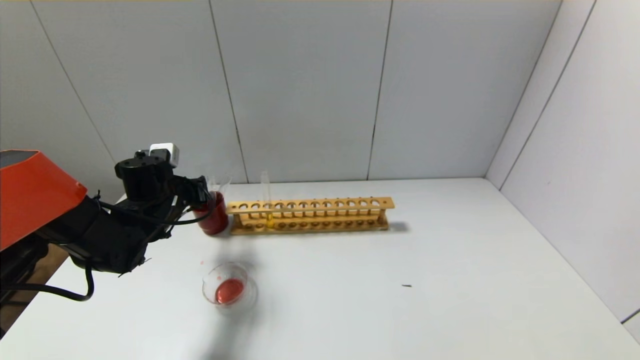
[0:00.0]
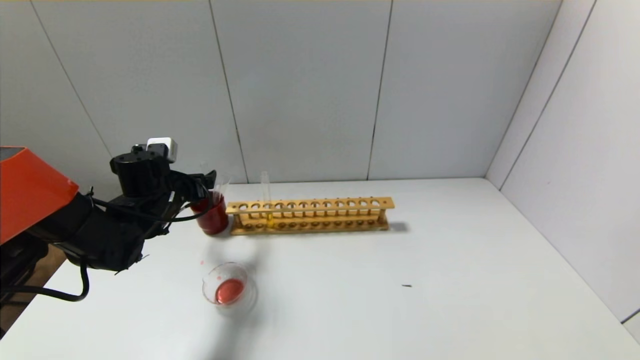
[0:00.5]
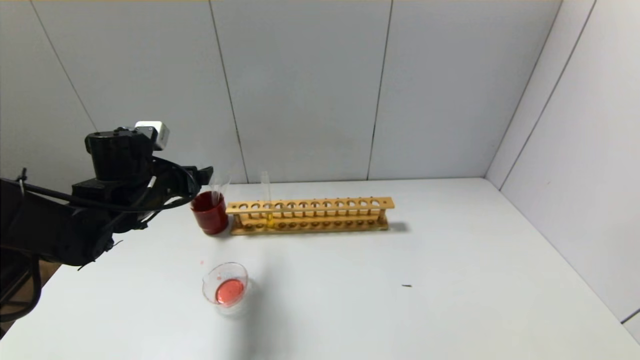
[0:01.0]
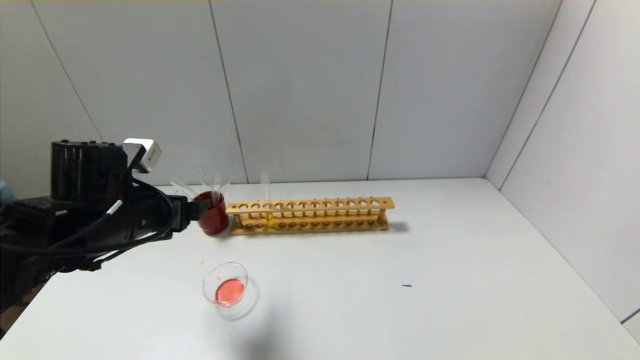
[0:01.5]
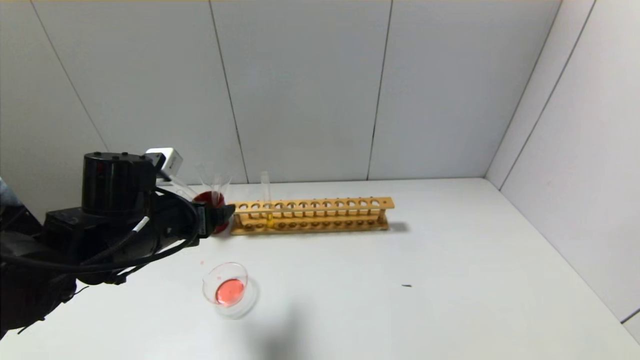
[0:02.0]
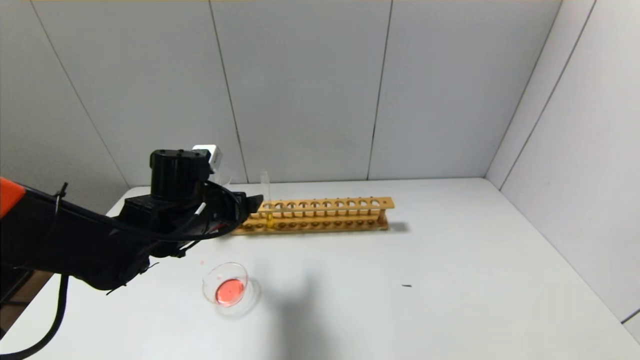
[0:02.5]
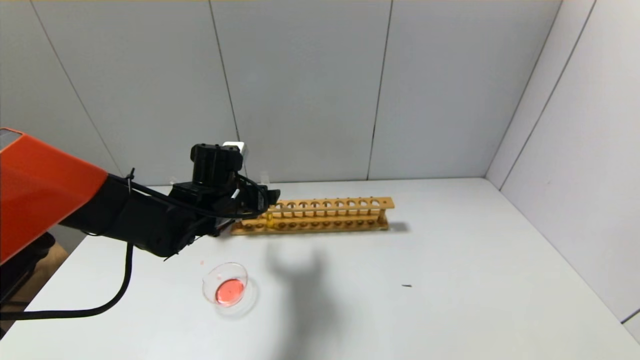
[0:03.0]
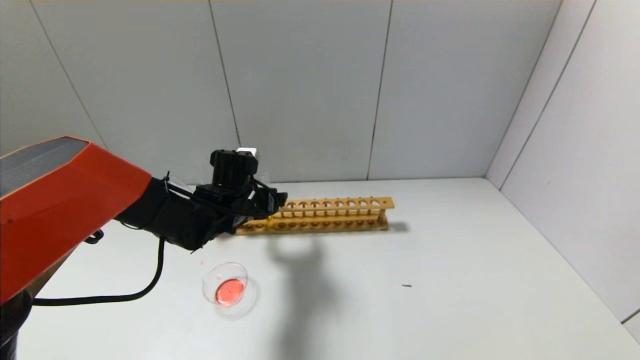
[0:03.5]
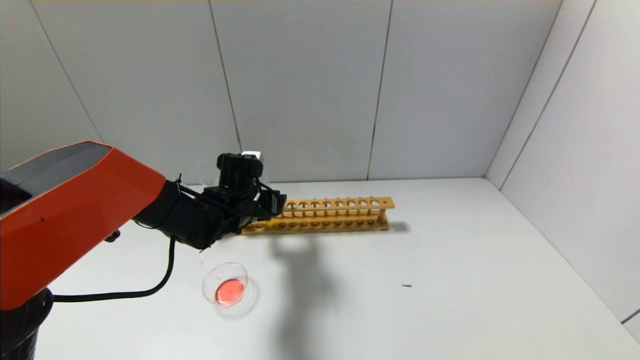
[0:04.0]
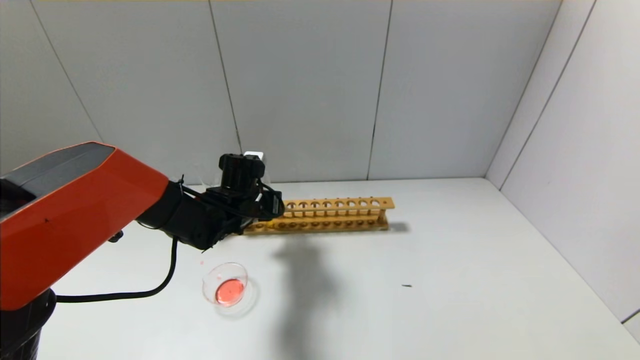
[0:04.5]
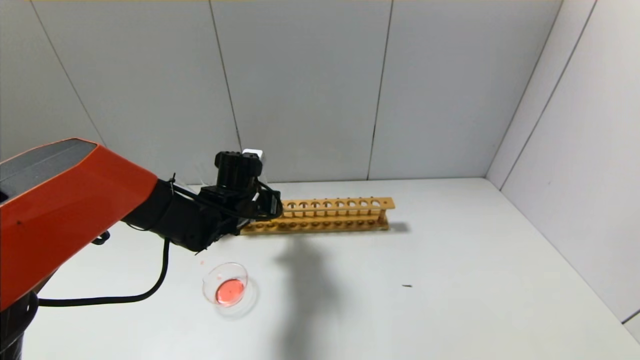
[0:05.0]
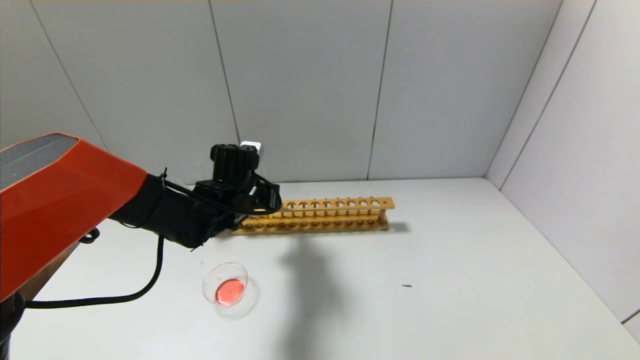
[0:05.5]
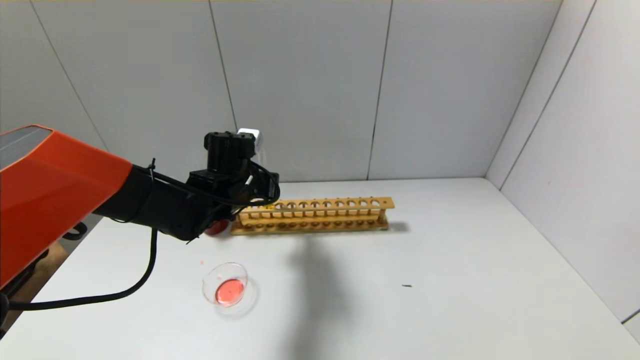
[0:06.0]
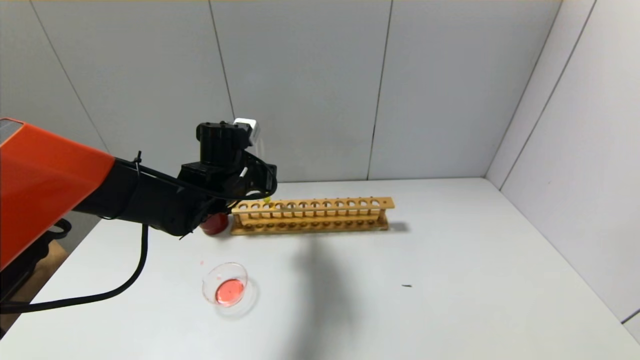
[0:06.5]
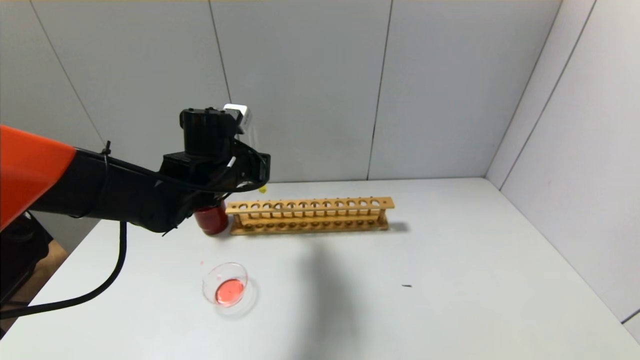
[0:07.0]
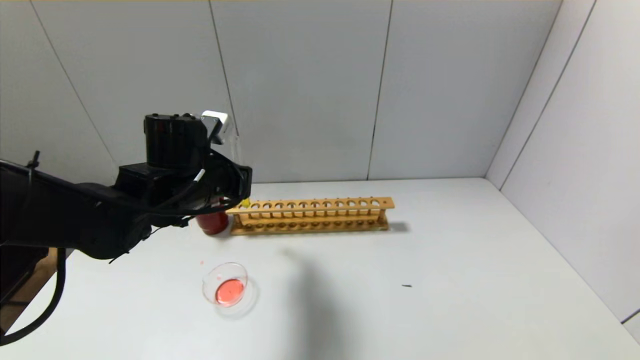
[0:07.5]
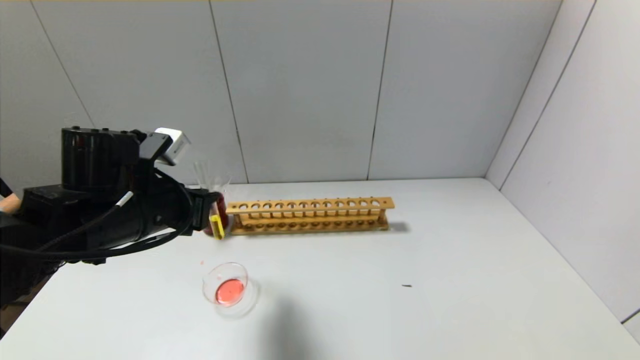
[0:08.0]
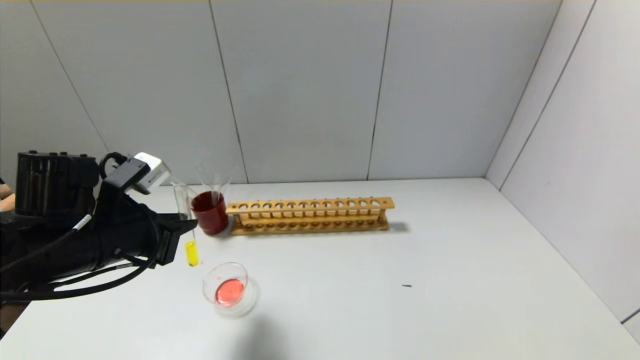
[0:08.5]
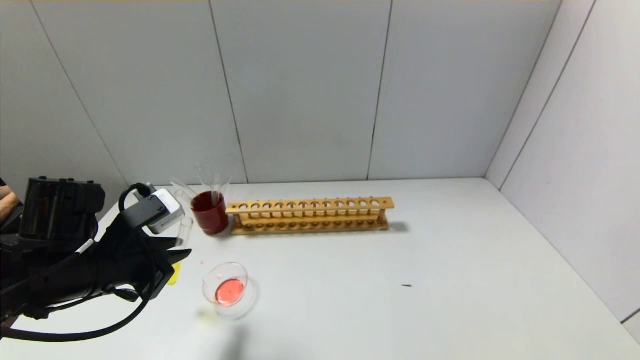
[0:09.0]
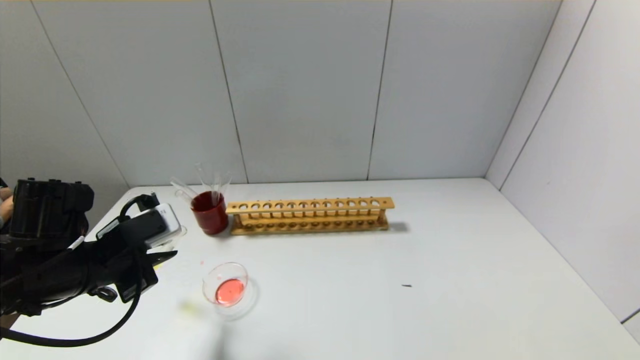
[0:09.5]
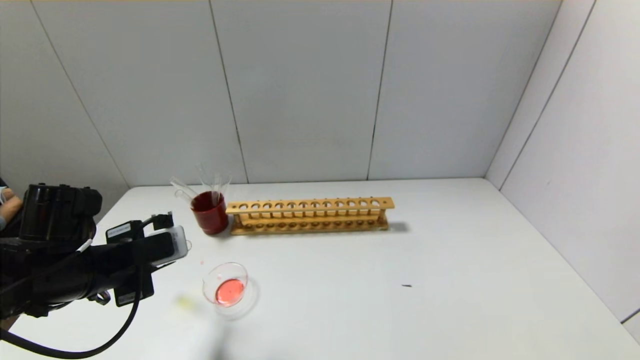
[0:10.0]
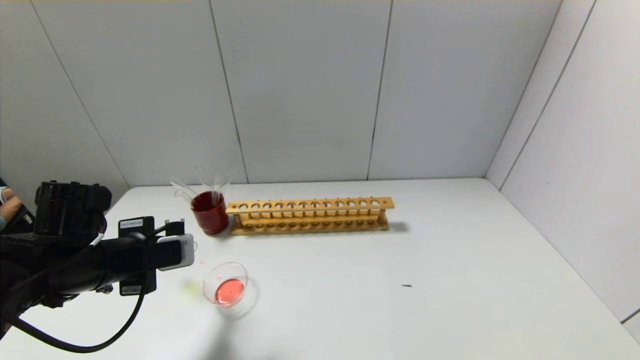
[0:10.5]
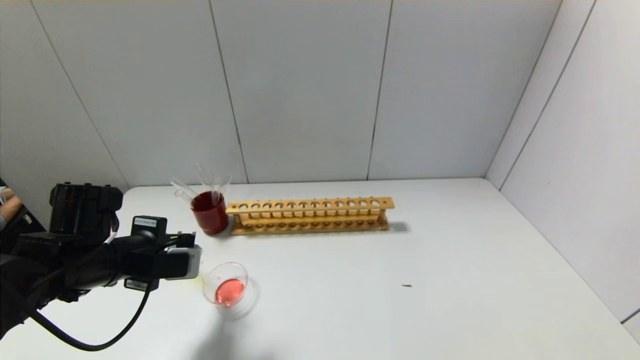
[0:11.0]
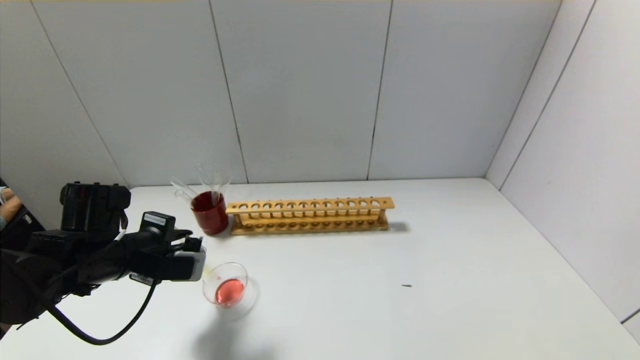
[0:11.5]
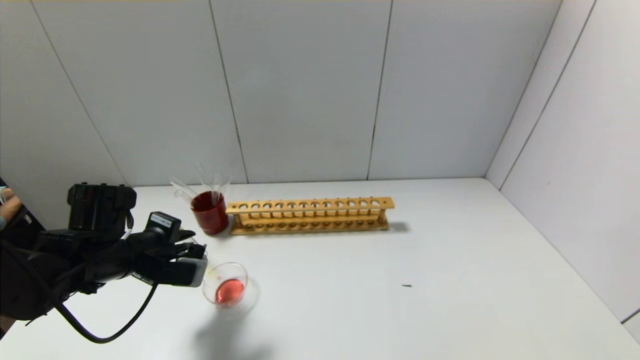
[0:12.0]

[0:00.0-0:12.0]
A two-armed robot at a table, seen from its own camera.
Step, 0:00.5 to 0:04.5: Grasp the yellow reagent with the left gripper.
0:00.0 to 0:02.0: The left gripper heads backward, upward and to the right, covering roughly 15 cm, and opens its fingers.
0:02.0 to 0:04.0: The left gripper travels forward, to the right and downward by some 15 cm.
0:04.0 to 0:06.0: The left gripper closes up.
0:06.0 to 0:08.0: The left gripper moves backward and to the left, approximately 15 cm.
0:08.0 to 0:10.0: The left gripper is displaced to the left and downward by about 10 cm.
0:10.0 to 0:12.0: The left gripper moves about 5 cm.

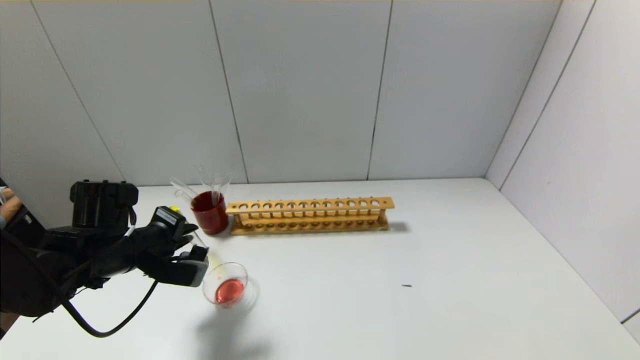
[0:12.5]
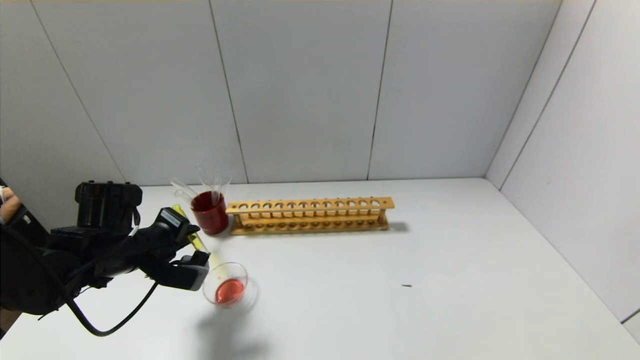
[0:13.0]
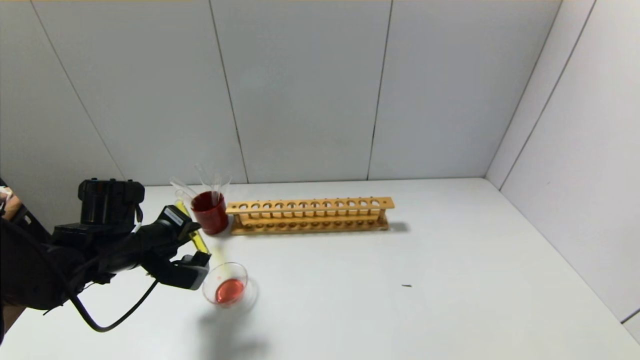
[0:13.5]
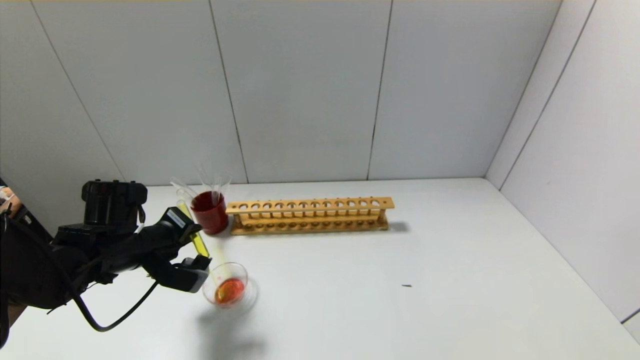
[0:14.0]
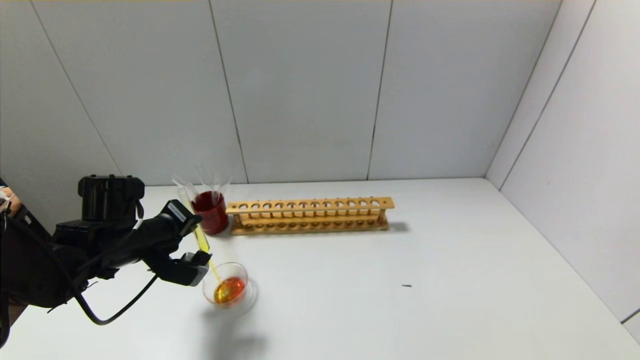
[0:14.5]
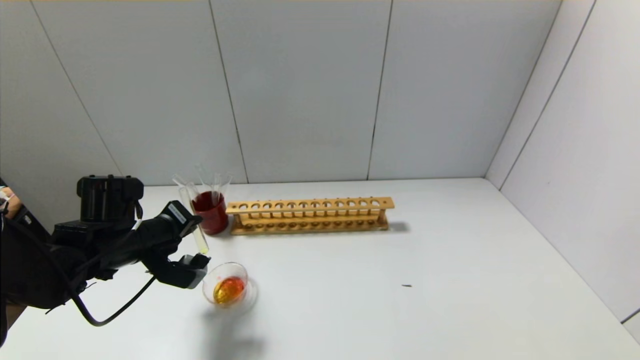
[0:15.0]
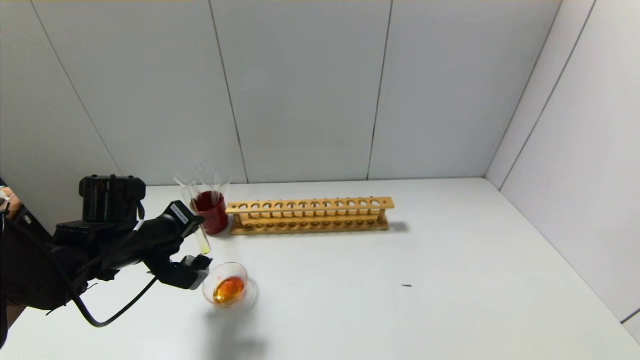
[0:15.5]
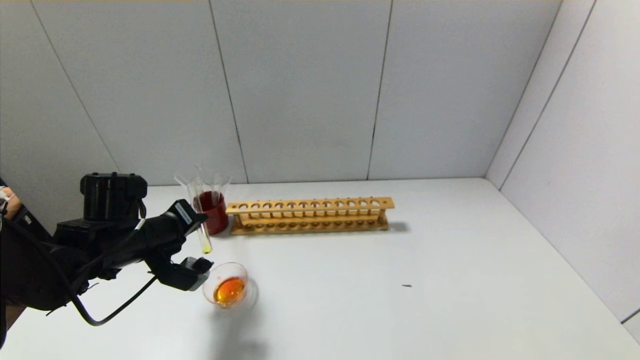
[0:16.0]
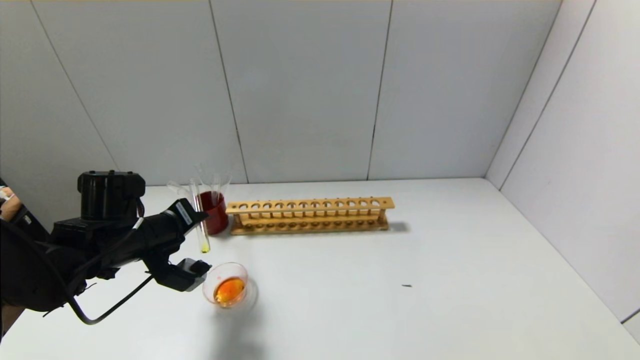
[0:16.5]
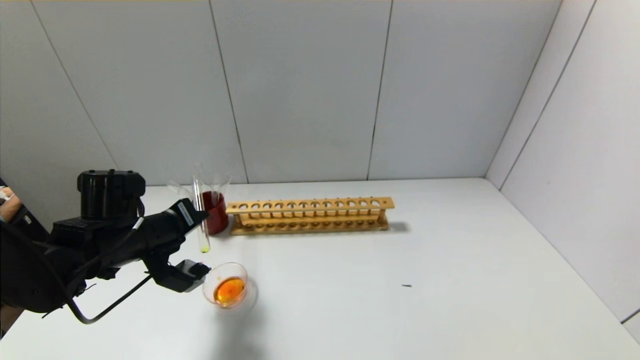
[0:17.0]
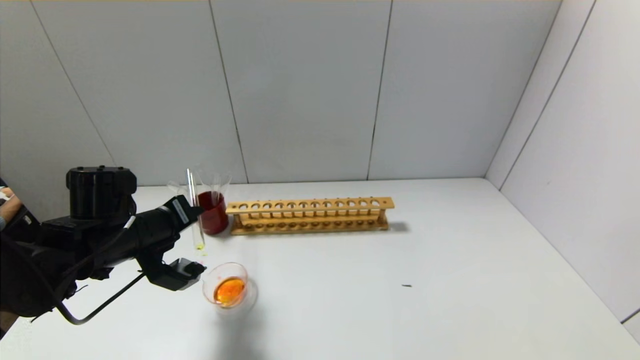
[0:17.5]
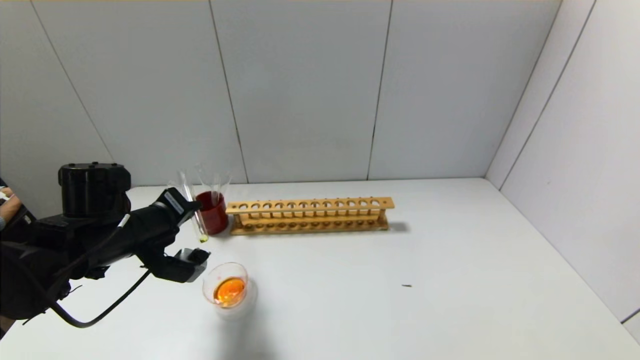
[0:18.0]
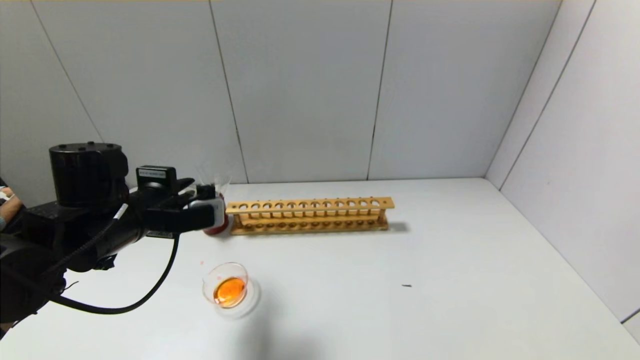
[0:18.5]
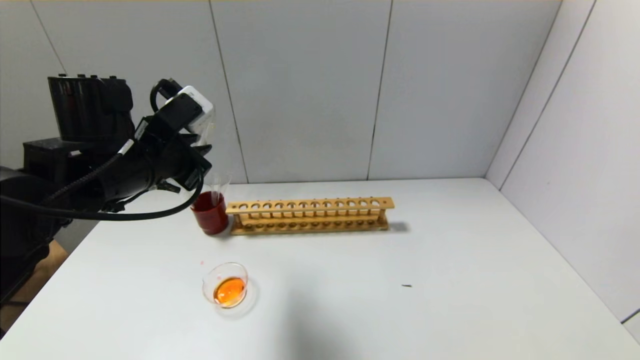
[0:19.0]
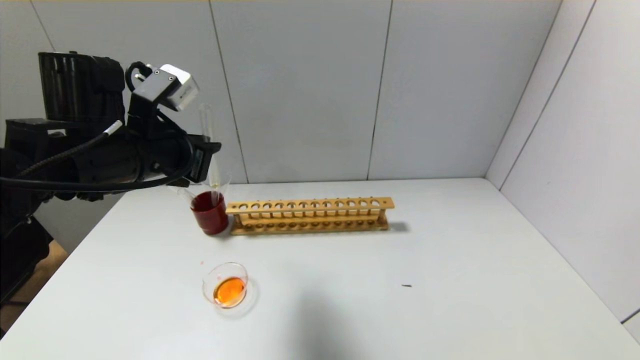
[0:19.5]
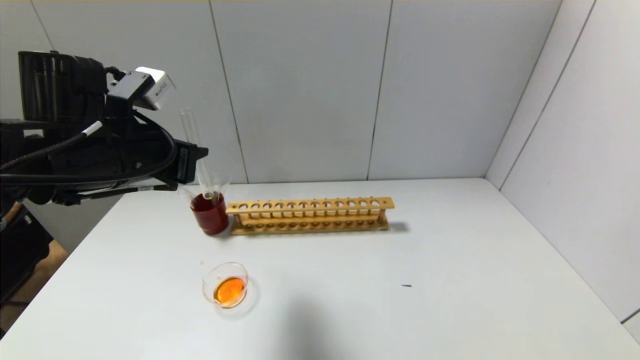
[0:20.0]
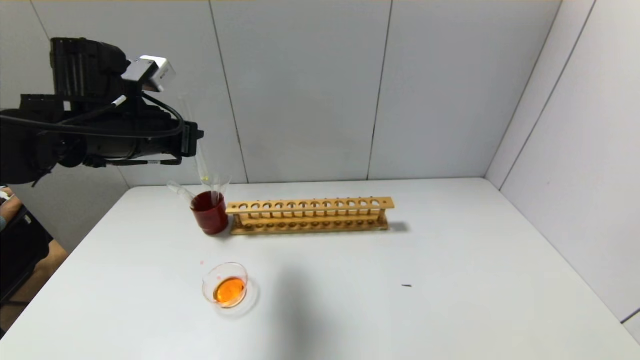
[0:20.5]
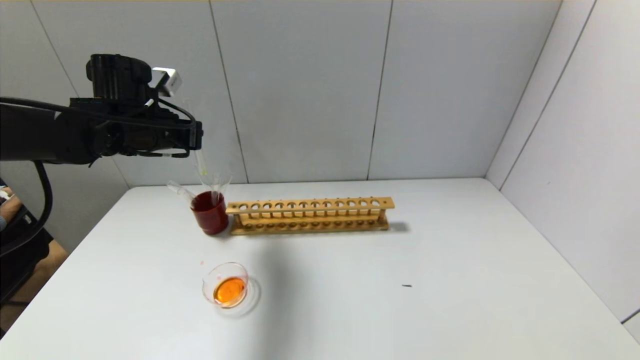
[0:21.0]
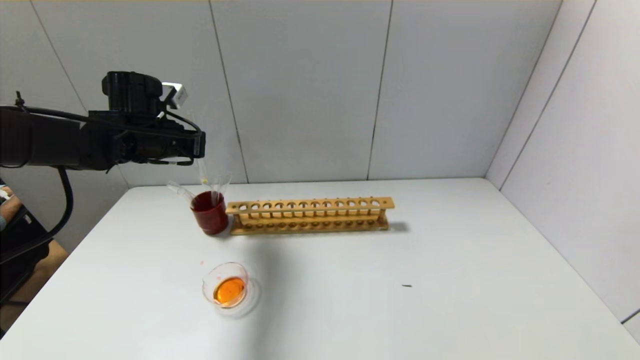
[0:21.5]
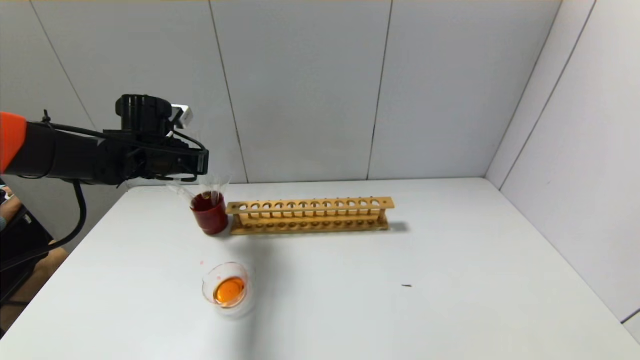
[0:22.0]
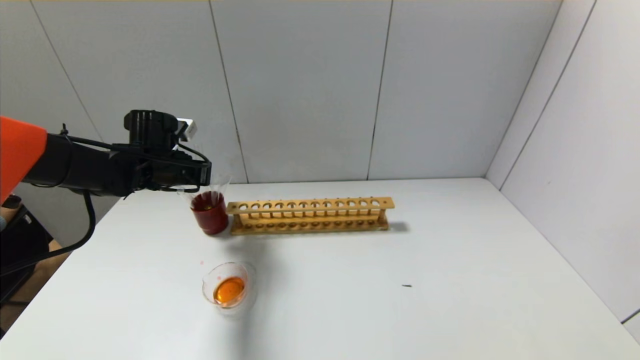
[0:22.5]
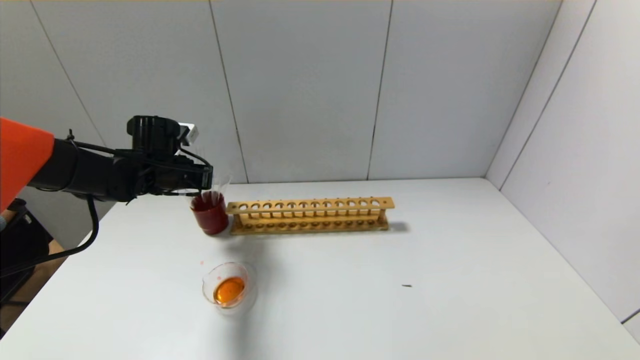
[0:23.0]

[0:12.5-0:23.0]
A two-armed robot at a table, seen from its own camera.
Step, 0:12.5 to 0:18.0: Pour the yellow reagent into the graduated cylinder with the left gripper.
0:12.5 to 0:14.5: The grippers stay close to where they were, moving slightly.
0:14.5 to 0:16.5: There are only small adjustments of the grippers.
0:16.5 to 0:19.0: The left gripper goes roughly 10 cm upward.
0:19.0 to 0:21.0: The left gripper heads forward and to the left, covering roughly 10 cm.
0:21.0 to 0:23.0: The left gripper shifts some 10 cm downward.
